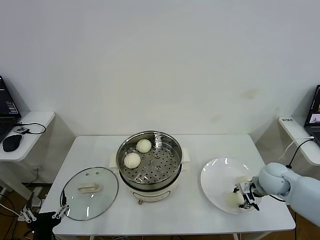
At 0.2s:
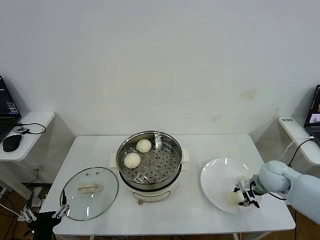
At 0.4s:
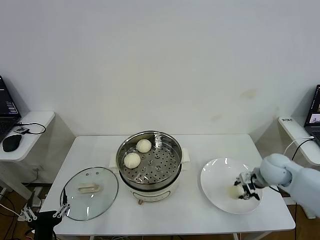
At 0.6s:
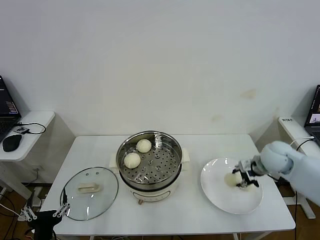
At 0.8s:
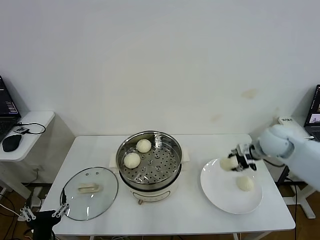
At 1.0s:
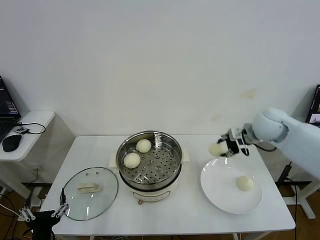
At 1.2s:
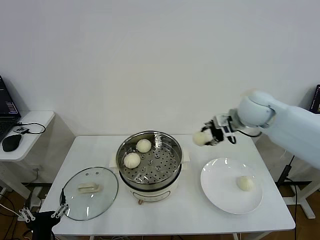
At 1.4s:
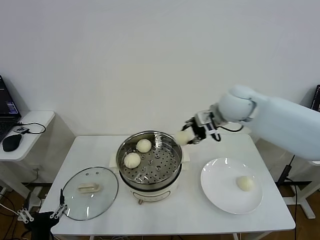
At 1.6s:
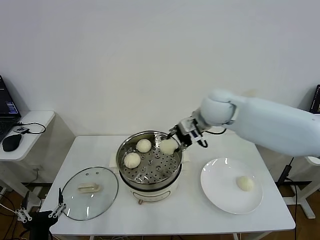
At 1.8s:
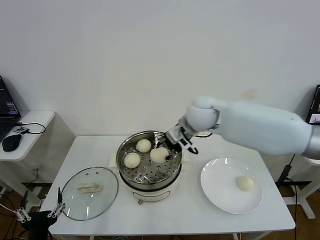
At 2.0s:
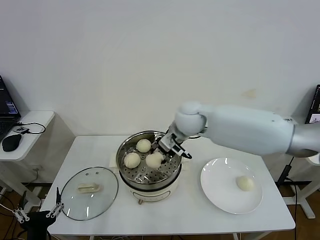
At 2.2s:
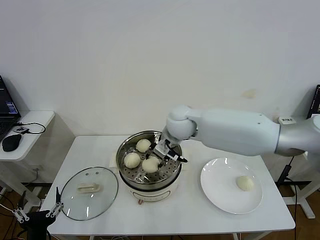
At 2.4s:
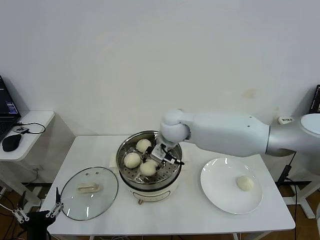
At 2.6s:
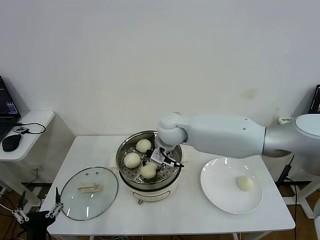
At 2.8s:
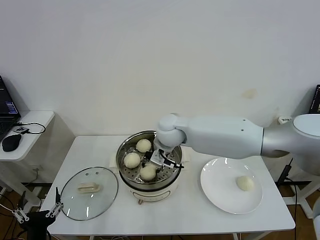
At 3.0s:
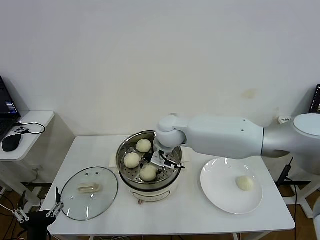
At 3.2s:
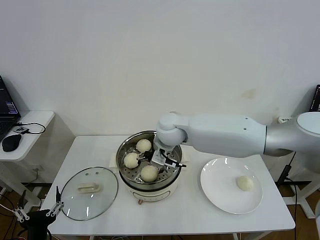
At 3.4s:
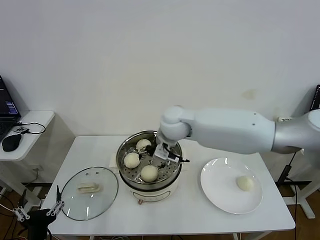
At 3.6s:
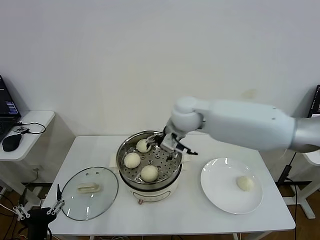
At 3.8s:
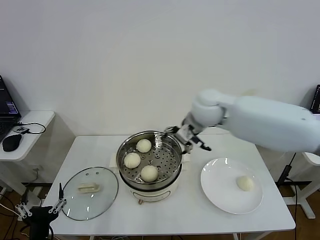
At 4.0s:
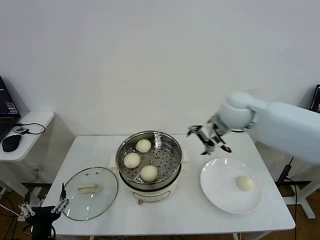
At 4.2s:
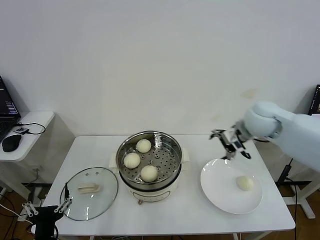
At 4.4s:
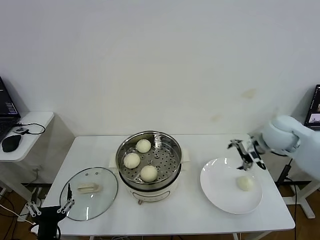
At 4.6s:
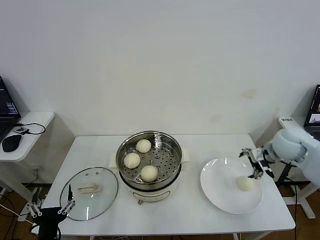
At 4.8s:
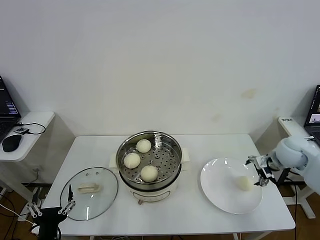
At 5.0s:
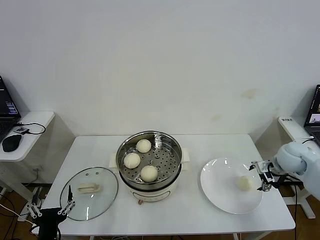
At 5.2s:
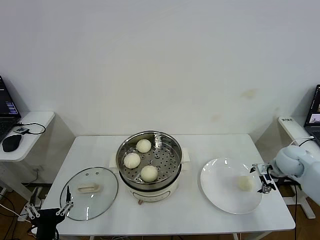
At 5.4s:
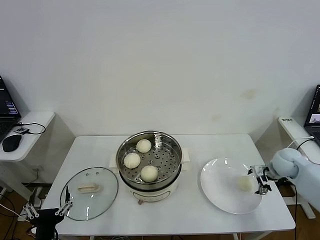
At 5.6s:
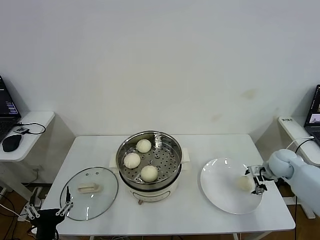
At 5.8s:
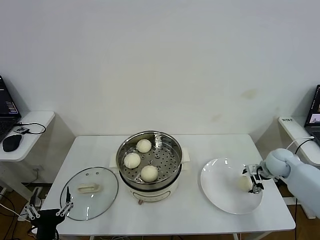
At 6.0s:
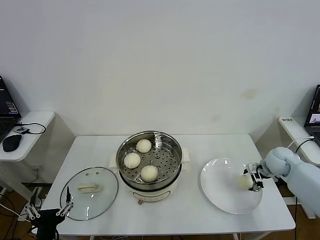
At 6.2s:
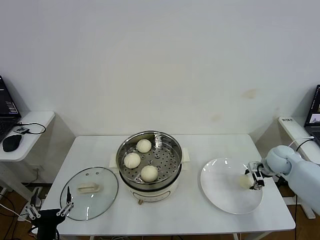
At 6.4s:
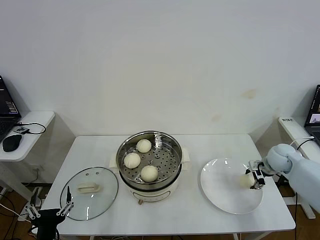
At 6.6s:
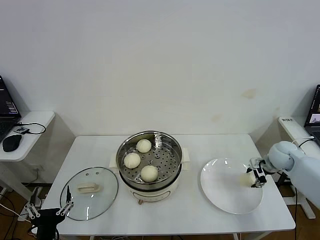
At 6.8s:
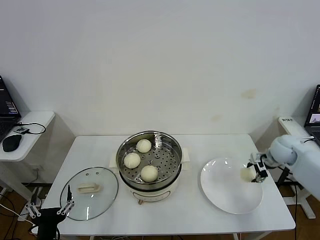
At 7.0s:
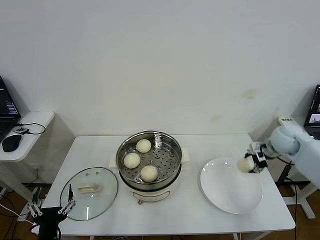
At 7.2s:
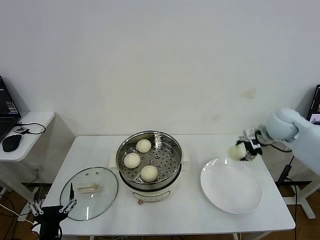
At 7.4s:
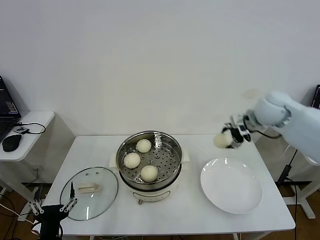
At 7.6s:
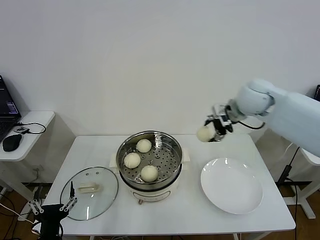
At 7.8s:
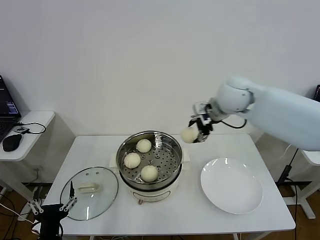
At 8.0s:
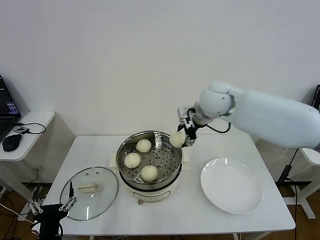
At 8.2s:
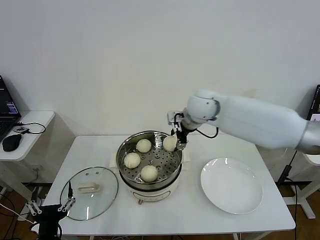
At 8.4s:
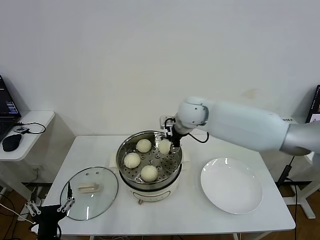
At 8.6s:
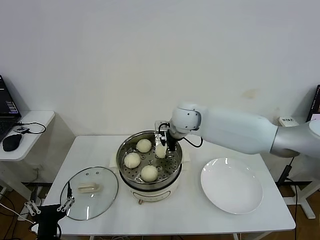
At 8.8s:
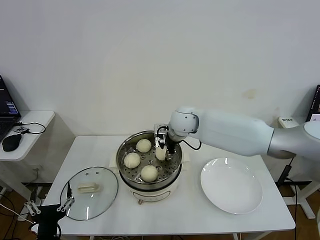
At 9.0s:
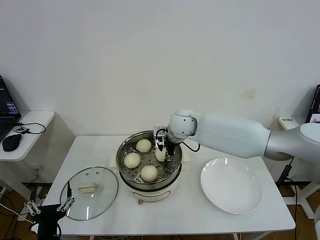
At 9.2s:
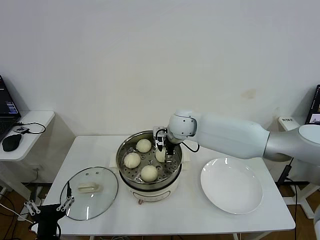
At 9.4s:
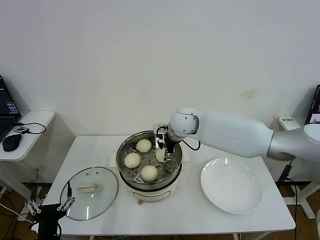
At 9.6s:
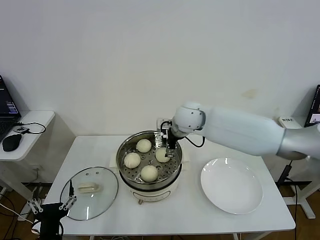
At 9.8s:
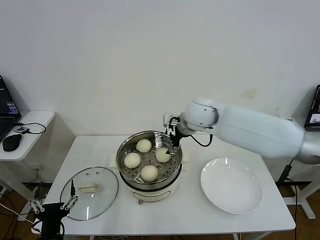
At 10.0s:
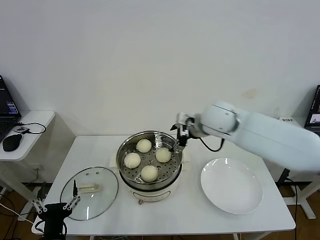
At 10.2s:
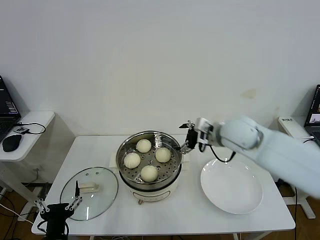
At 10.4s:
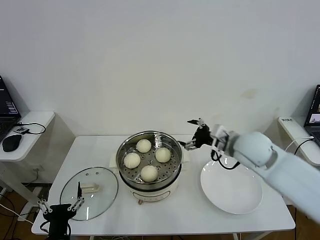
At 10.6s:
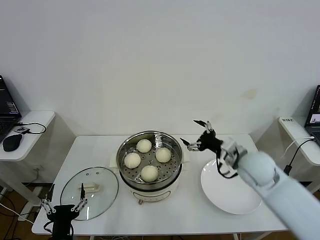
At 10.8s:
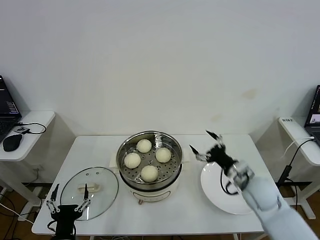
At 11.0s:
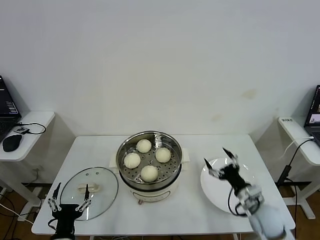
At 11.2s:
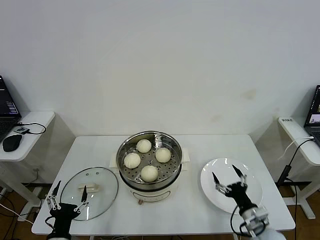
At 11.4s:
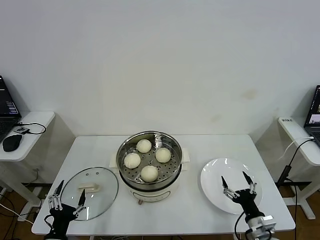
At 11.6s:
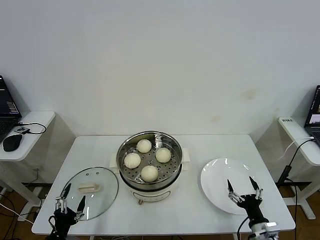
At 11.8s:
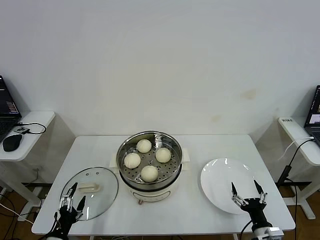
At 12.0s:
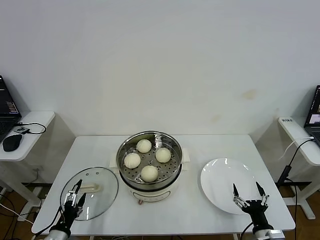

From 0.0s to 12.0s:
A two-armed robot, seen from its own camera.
Step, from 0.4s to 3.0s: Place the baozi on the steamer with right gripper.
Step, from 3.2s to 6.0s: Grasp the baozi in the plate with right gripper.
Step, from 6.4s to 9.2s: Place the baozi on the steamer with right gripper.
From 0.0s to 1.6s: The right gripper travels upward, to the left and forward by about 30 cm.
From 1.6s to 3.0s: The right gripper moves to the left and downward, roughly 15 cm, and opens its fingers.
From 3.0s to 4.4s: The right gripper travels to the right by roughly 30 cm, and opens up.
From 4.4s to 6.0s: The right gripper travels downward and to the right by roughly 20 cm.
From 6.0s to 7.6s: The right gripper travels upward and to the left by approximately 30 cm.
From 7.6s to 9.0s: The right gripper heads to the left and downward, covering roughly 20 cm.
From 9.0s to 10.4s: The right gripper goes about 20 cm to the right and backward, and opens its fingers.
From 10.4s to 12.0s: The left gripper goes roughly 10 cm to the left and downward. Meanwhile the right gripper travels downward and backward by some 35 cm.

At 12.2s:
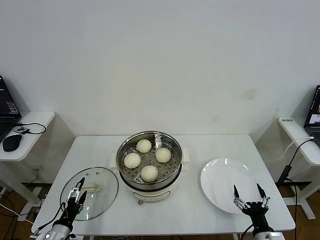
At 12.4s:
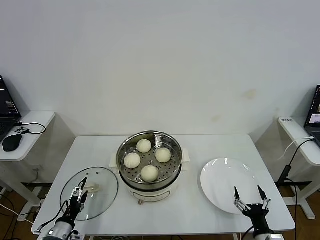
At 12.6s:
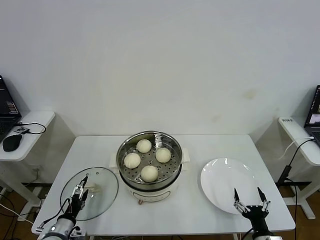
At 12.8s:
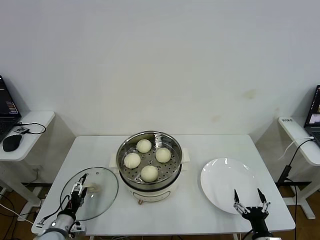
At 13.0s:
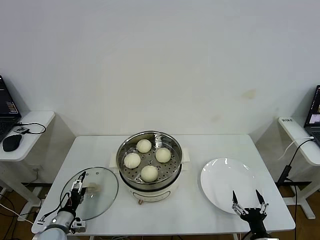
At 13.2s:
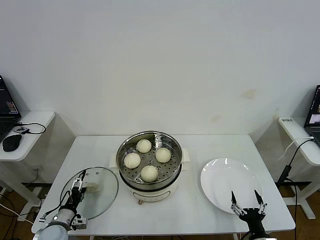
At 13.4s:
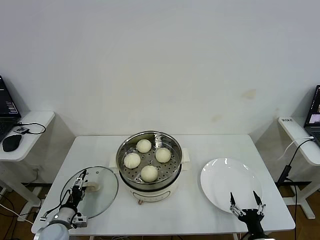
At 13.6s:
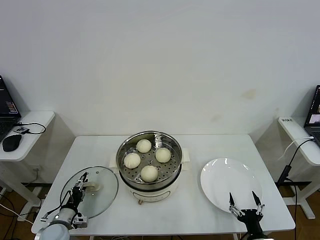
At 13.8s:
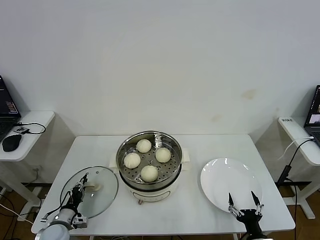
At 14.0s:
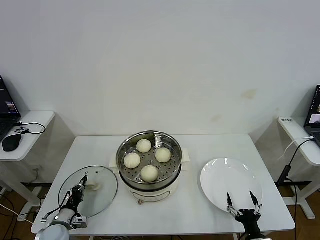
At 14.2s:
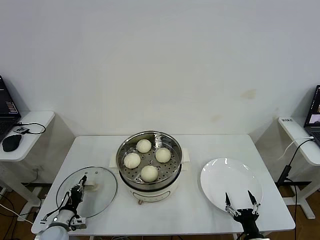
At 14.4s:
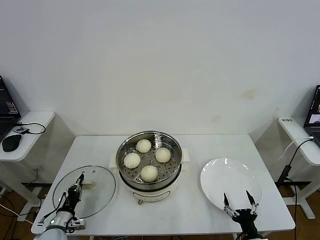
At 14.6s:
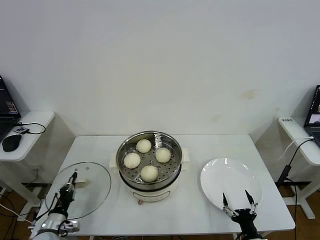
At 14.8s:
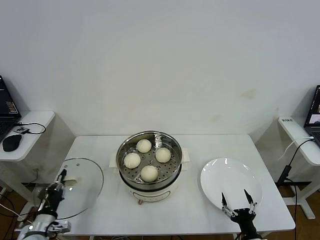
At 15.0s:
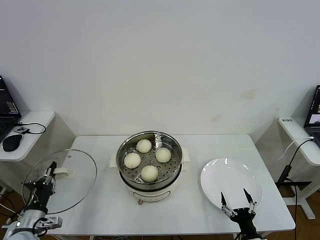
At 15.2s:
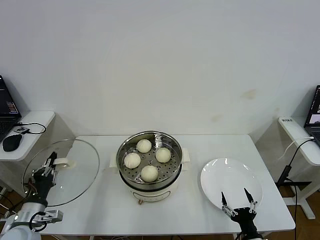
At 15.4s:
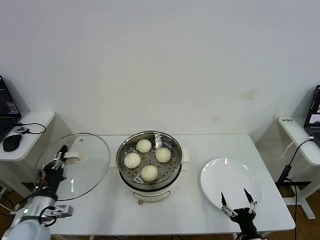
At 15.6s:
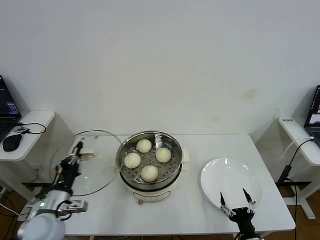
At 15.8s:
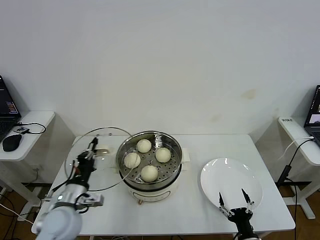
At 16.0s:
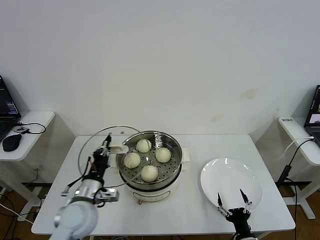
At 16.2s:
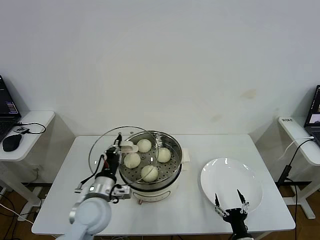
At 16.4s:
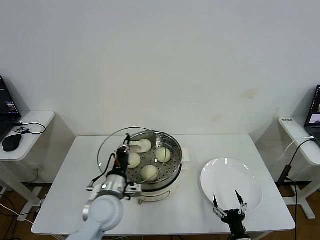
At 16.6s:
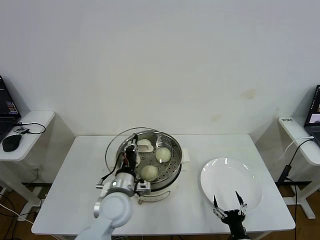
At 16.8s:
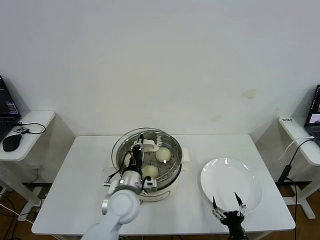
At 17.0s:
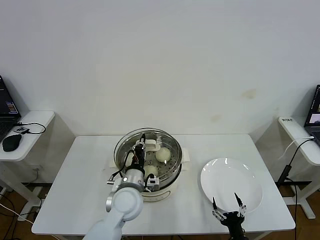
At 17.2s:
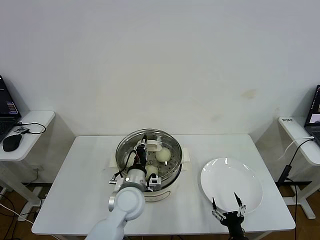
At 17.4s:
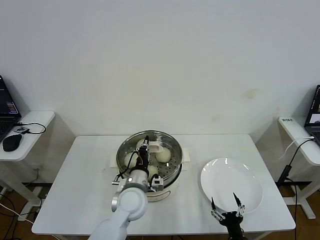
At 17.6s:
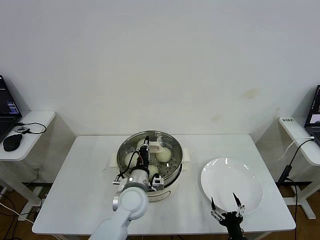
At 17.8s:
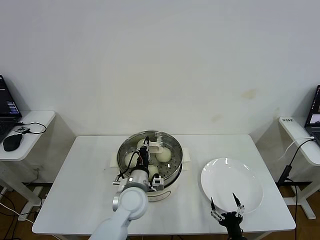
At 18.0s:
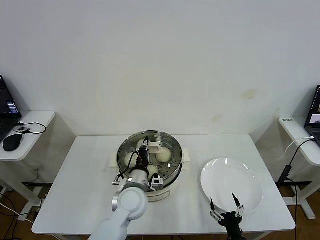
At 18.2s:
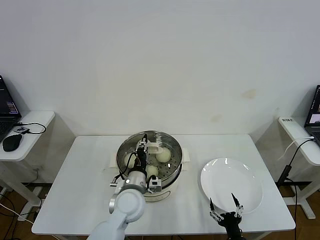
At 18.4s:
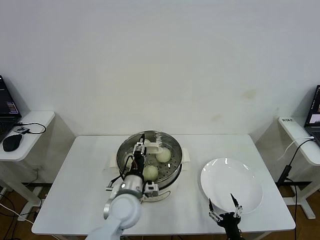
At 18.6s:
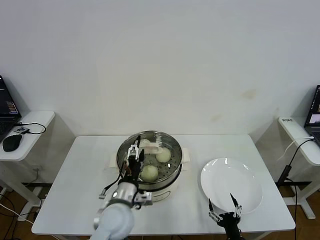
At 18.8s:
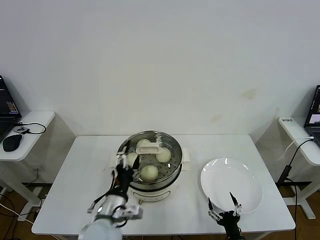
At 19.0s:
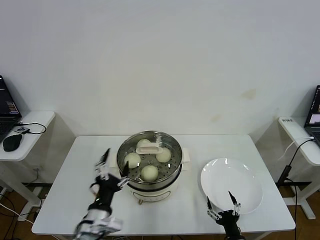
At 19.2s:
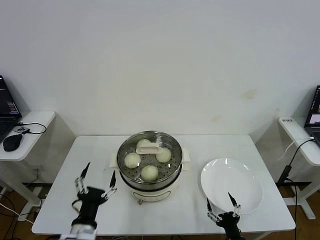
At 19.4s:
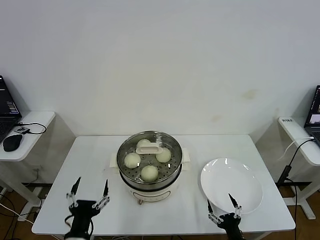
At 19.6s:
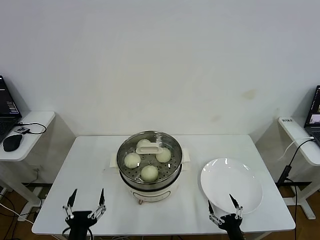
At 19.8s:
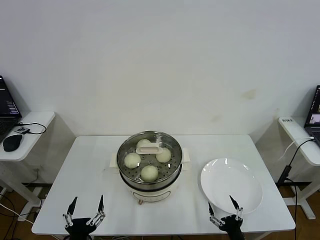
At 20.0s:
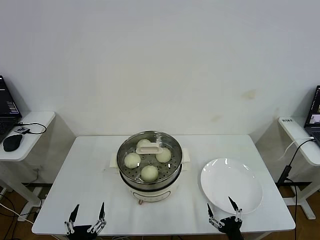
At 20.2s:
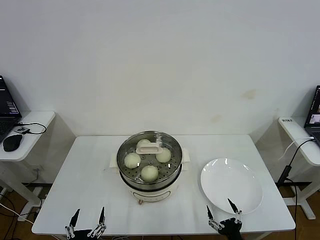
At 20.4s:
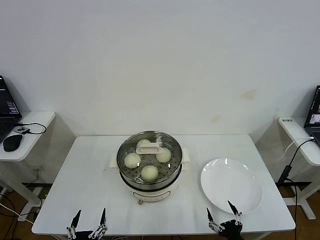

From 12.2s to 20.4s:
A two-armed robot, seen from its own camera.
Step, from 14.2s to 18.2s: Place the pot lid on the steamer with left gripper.
From 12.2s to 13.8s: The left gripper heads forward and downward, covering approximately 10 cm, and closes.
From 13.8s to 15.4s: The left gripper heads upward, covering approximately 15 cm, and closes.
From 15.4s to 17.2s: The left gripper shifts about 25 cm to the right.
From 17.2s to 18.8s: The left gripper heads backward, covering about 10 cm, and opens up.
From 18.8s to 20.4s: The left gripper moves backward, to the left and downward, about 25 cm.

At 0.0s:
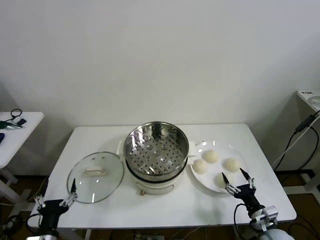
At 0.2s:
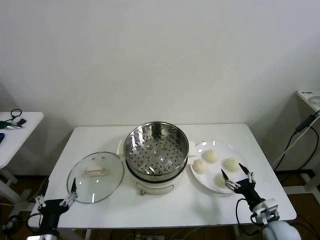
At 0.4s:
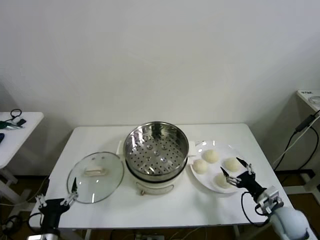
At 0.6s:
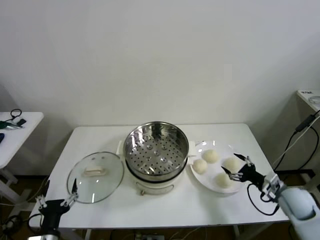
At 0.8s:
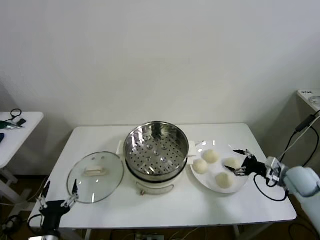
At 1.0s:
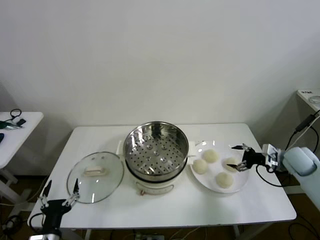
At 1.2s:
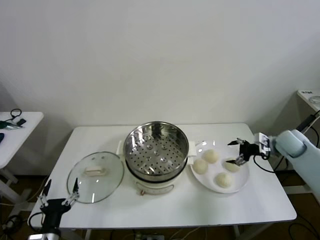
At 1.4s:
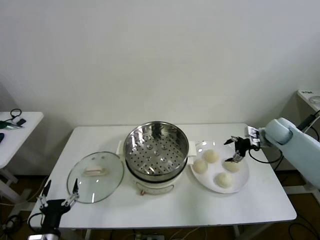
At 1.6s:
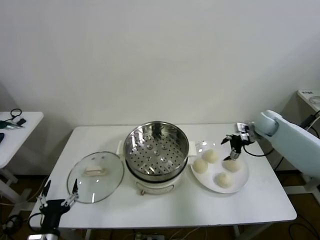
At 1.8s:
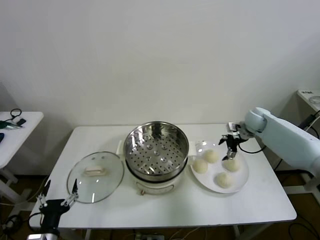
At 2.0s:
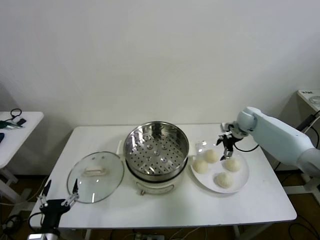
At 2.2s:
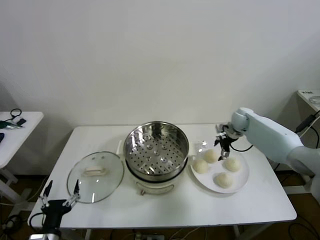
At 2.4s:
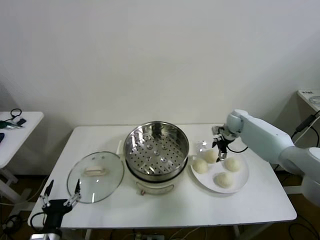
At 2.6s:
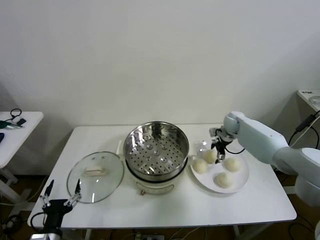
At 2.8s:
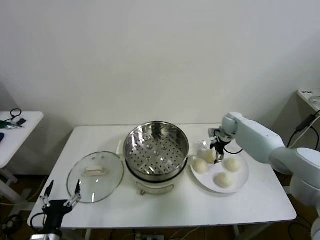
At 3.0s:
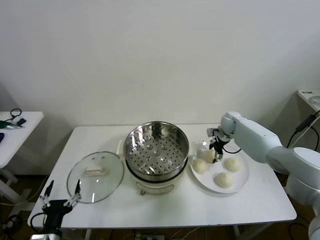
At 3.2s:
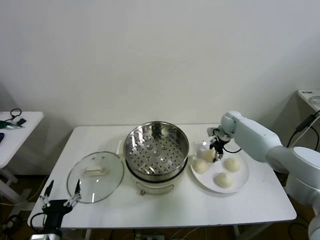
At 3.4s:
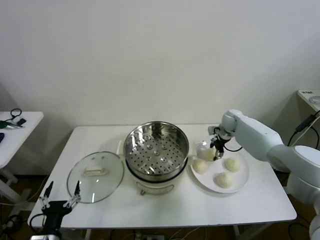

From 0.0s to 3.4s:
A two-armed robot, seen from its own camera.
Step, from 0.0s to 3.0s: Grasp the baozi in the plate with right gripper.
From 1.6s to 3.4s: The right gripper goes about 10 cm to the left and forward, and closes its fingers.
